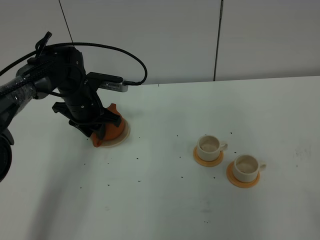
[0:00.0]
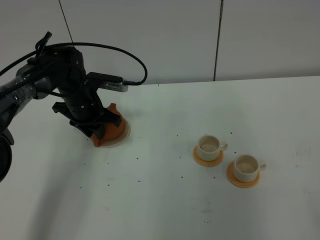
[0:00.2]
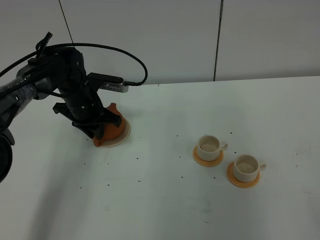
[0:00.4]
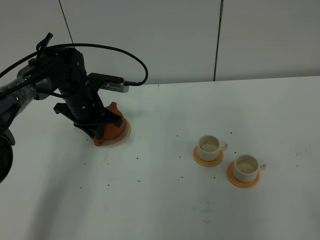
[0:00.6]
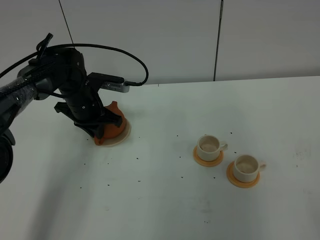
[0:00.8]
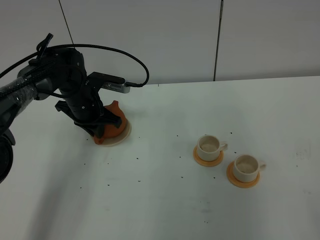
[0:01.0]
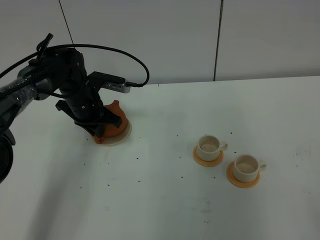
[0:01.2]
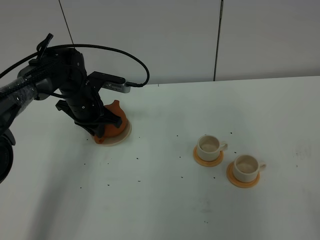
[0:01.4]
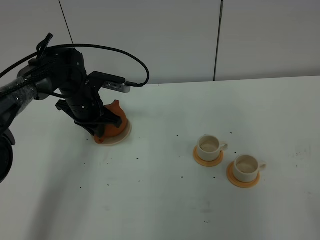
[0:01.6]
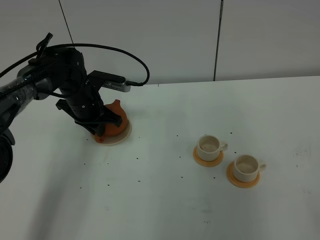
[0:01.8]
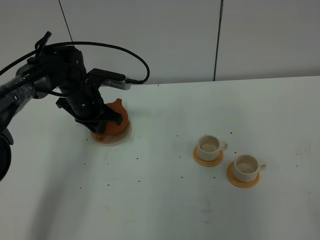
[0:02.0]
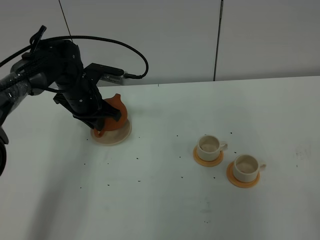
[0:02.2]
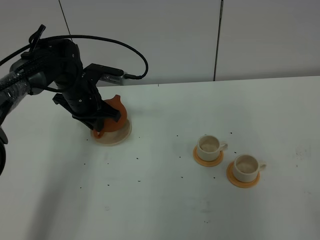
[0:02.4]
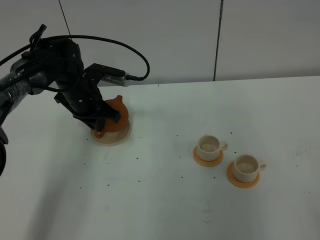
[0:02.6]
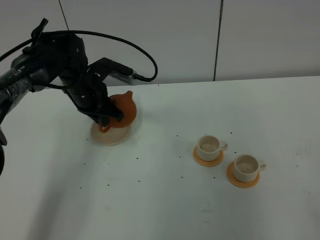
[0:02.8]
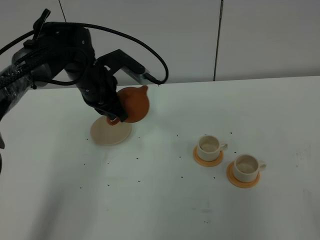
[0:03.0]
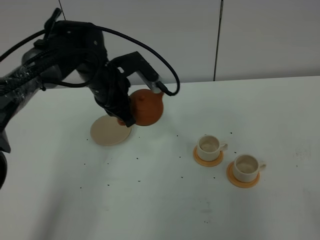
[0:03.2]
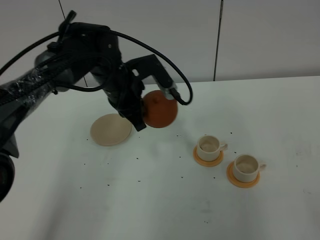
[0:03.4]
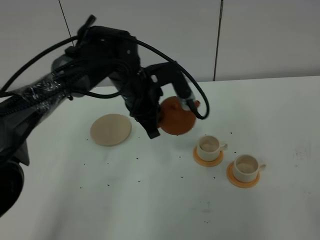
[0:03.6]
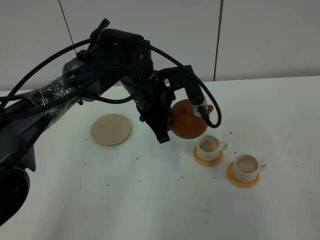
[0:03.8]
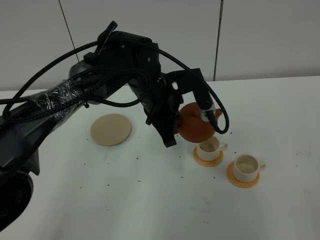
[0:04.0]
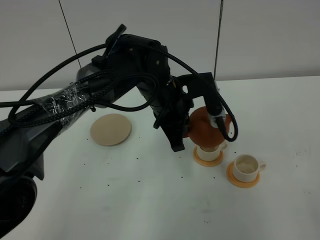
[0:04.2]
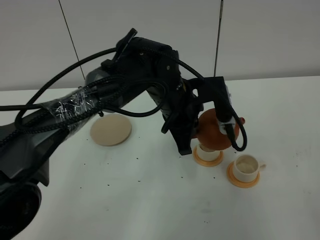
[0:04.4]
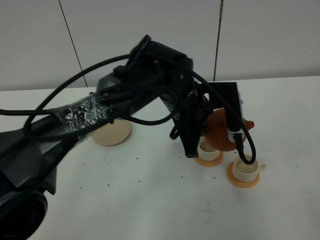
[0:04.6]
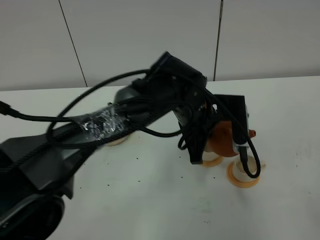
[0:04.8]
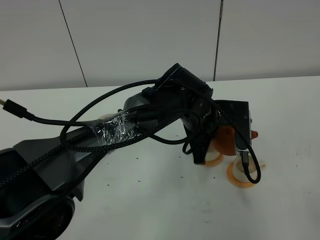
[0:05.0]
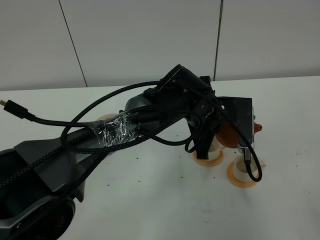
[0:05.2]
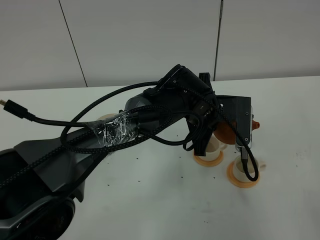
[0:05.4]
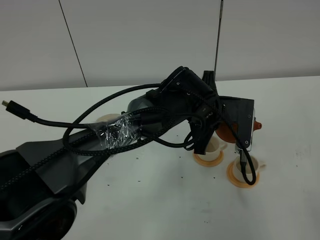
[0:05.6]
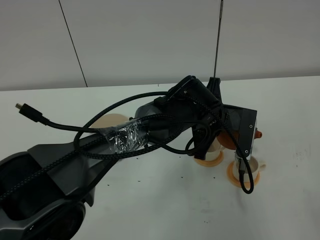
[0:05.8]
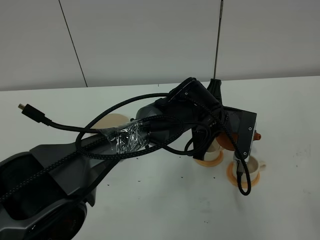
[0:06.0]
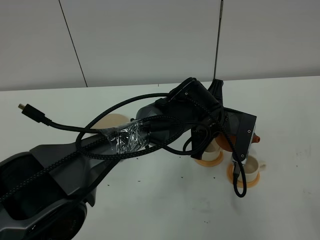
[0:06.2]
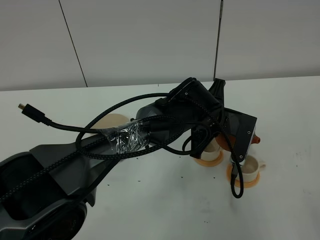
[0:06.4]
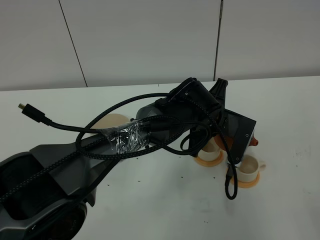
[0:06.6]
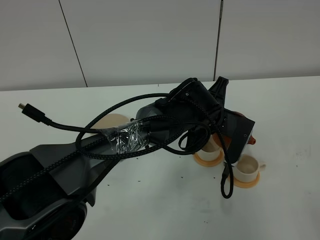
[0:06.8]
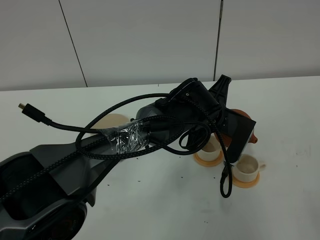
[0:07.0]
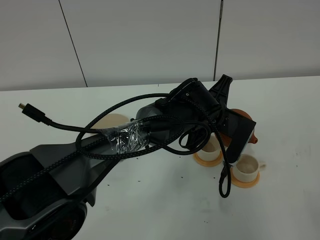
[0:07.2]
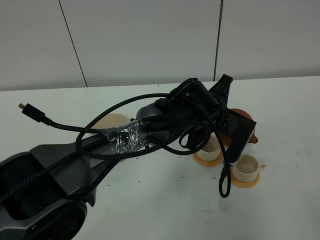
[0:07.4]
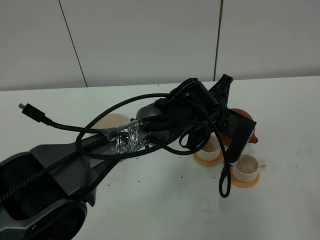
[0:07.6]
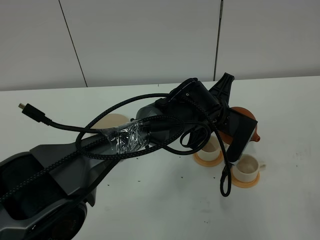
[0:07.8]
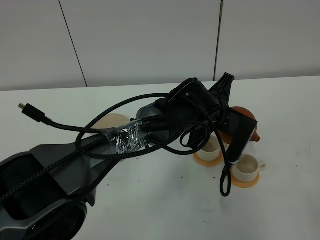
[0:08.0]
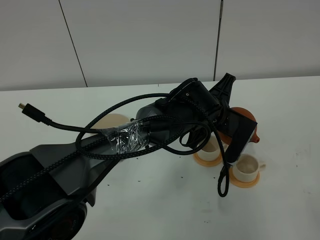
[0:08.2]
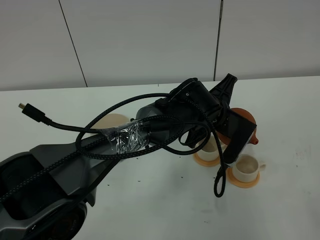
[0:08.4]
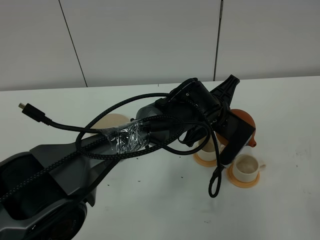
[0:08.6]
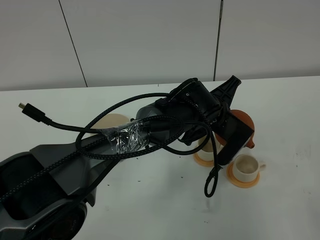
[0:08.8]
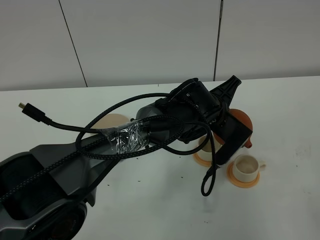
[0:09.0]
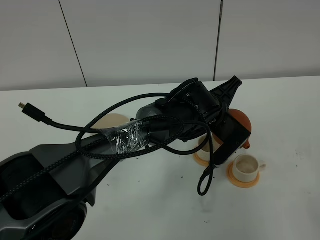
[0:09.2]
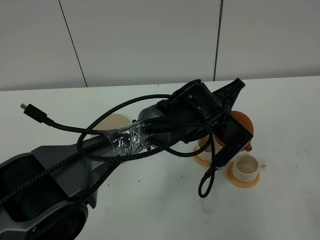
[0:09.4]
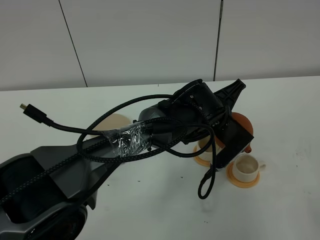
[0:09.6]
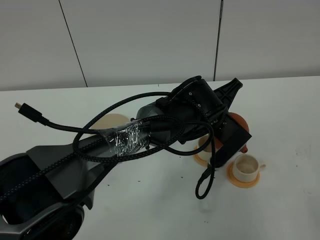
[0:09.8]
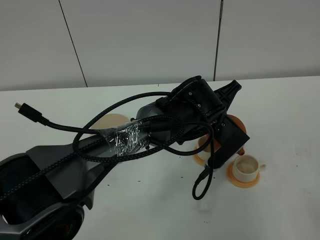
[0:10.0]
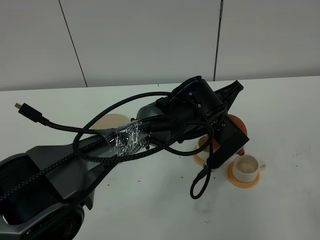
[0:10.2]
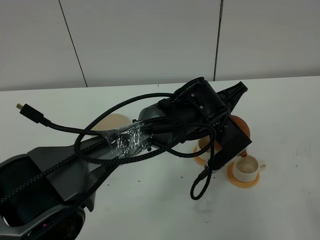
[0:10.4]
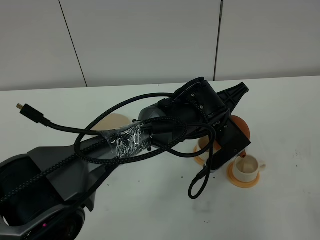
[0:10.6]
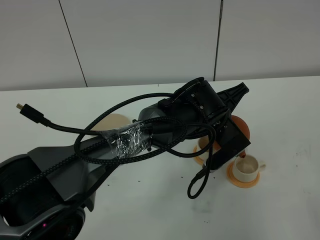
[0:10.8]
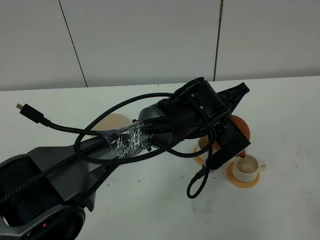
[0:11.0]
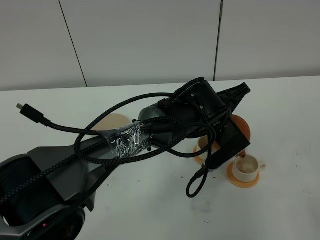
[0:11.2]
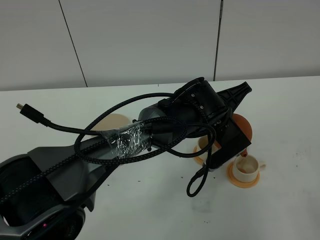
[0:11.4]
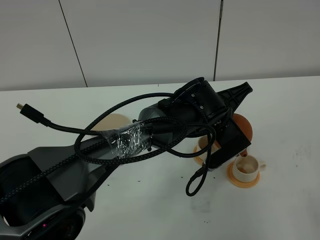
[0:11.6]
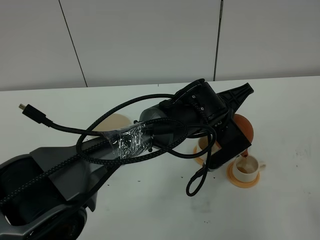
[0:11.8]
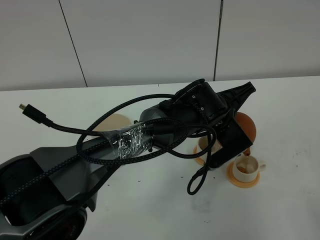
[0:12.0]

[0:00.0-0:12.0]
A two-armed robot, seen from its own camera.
Task of the whole recording: grasp the brown teapot and pour the tea into the two white teacups one by one, put the brown teapot back in its original place.
Step, 0:00.0 to 0:03.2: Pick up the teapot with the left gripper.
0:00.0 to 0:01.6: The left gripper closes its fingers.
0:01.6 to 0:03.0: The left gripper is displaced upward by roughly 5 cm.
0:03.0 to 0:04.4: The left gripper is displaced to the right and backward by approximately 15 cm.
0:04.4 to 0:06.0: The left gripper goes about 10 cm to the right and downward.
0:06.0 to 0:07.6: There are only small adjustments of the grippers.
0:07.6 to 0:09.0: The grippers stay close to where they were, moving slightly.
0:09.0 to 0:12.0: The grippers move only a little.

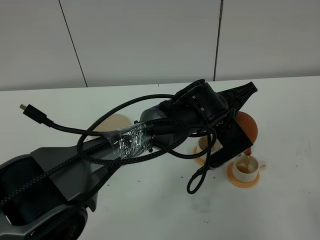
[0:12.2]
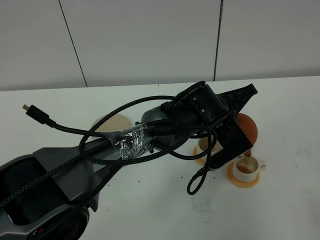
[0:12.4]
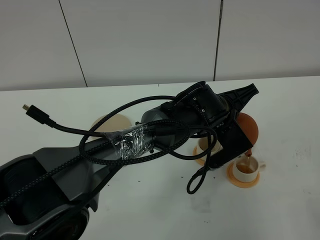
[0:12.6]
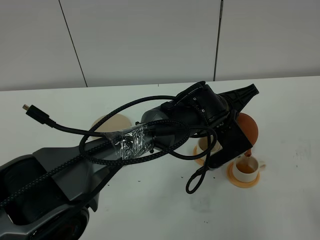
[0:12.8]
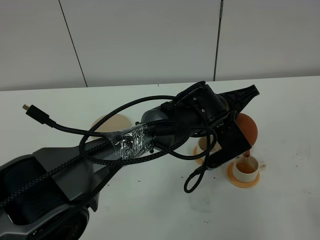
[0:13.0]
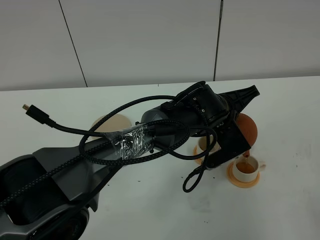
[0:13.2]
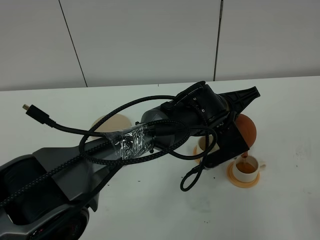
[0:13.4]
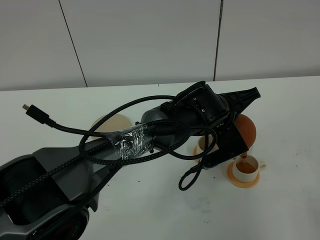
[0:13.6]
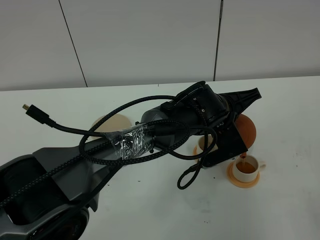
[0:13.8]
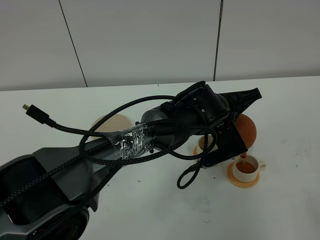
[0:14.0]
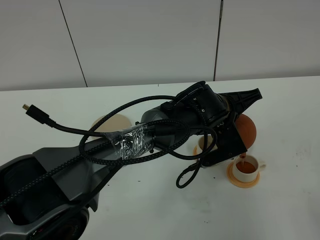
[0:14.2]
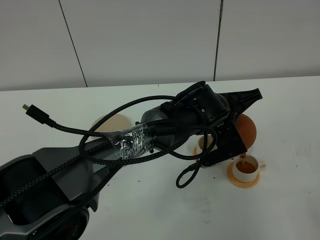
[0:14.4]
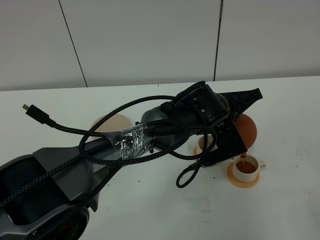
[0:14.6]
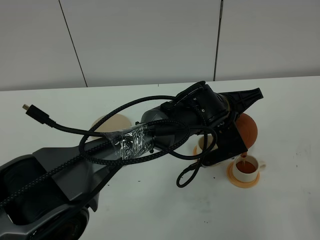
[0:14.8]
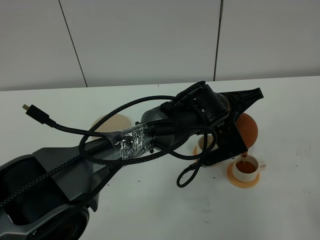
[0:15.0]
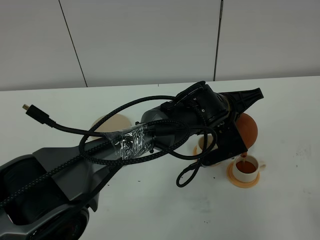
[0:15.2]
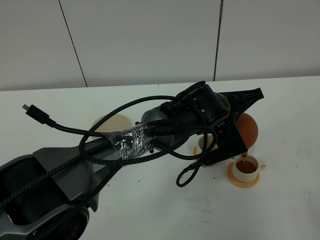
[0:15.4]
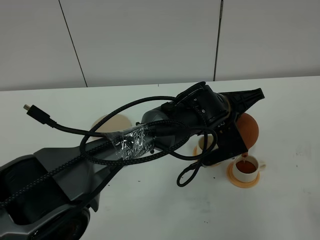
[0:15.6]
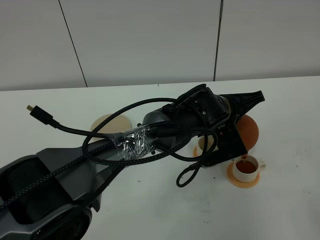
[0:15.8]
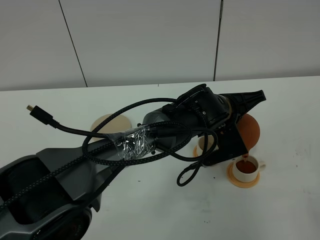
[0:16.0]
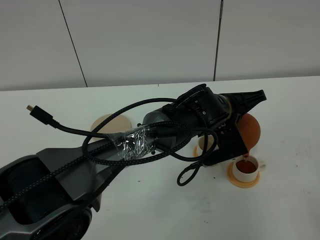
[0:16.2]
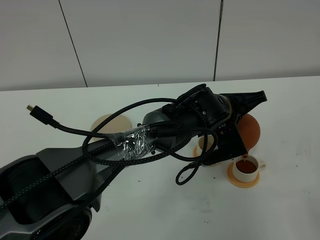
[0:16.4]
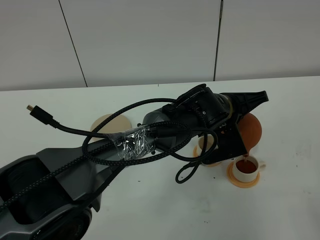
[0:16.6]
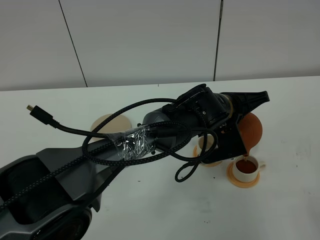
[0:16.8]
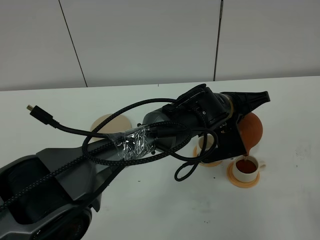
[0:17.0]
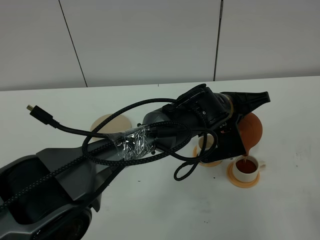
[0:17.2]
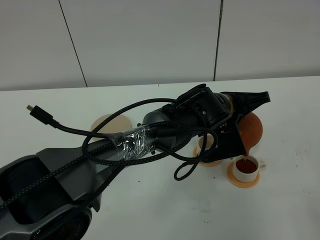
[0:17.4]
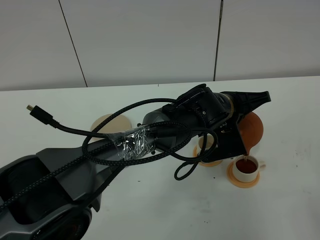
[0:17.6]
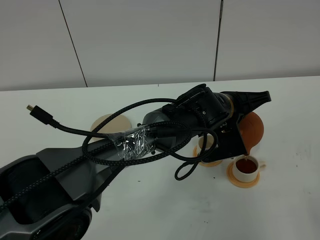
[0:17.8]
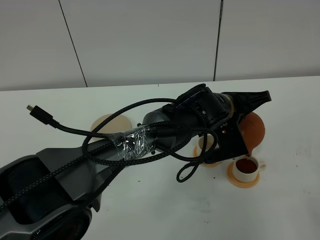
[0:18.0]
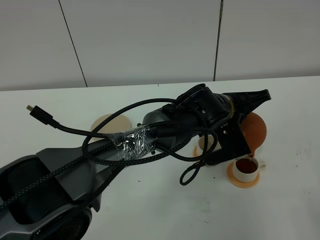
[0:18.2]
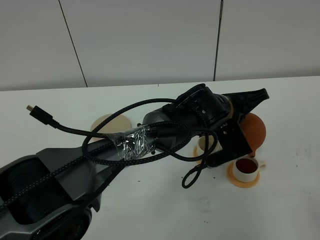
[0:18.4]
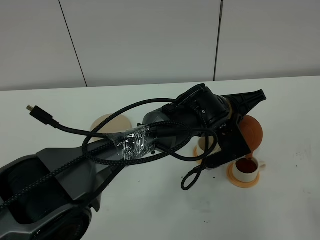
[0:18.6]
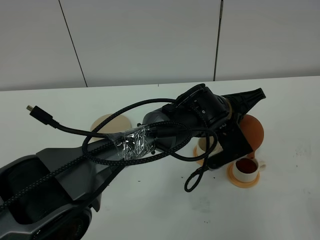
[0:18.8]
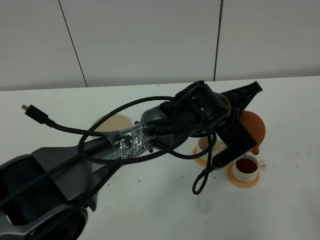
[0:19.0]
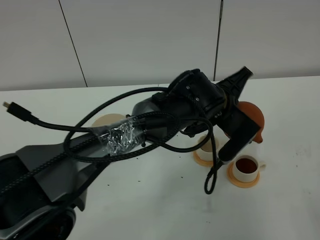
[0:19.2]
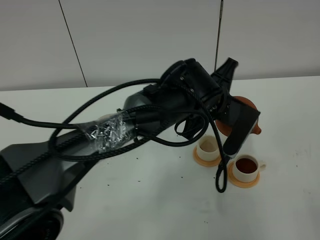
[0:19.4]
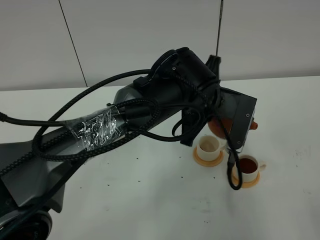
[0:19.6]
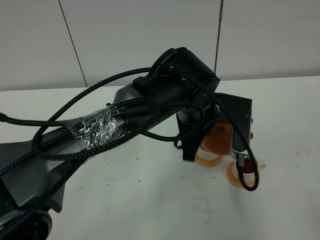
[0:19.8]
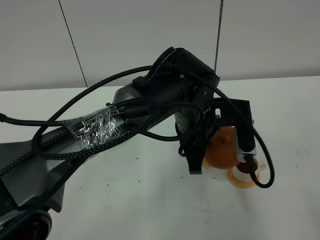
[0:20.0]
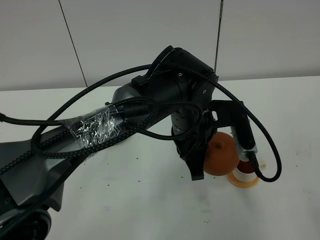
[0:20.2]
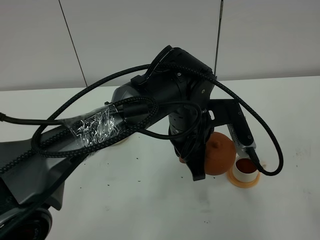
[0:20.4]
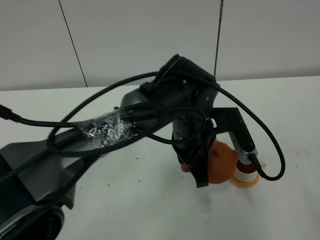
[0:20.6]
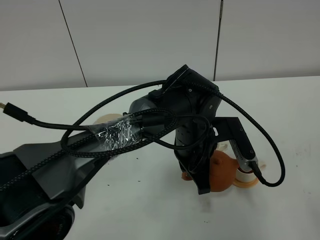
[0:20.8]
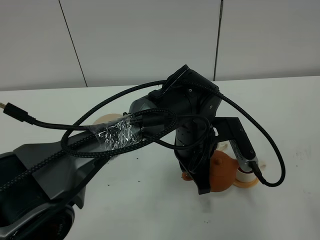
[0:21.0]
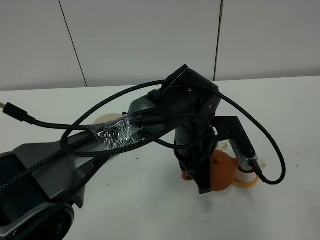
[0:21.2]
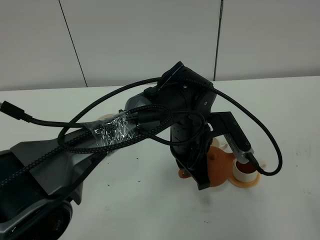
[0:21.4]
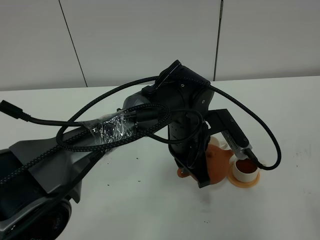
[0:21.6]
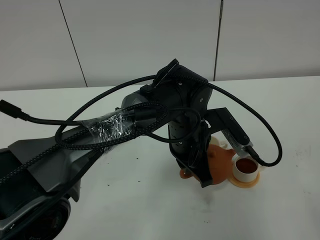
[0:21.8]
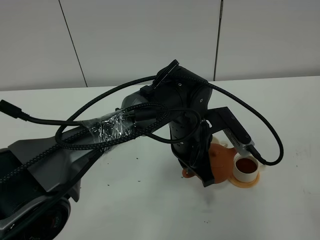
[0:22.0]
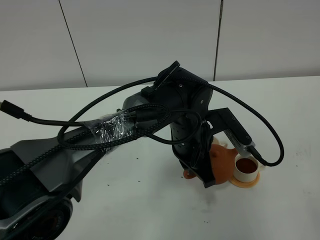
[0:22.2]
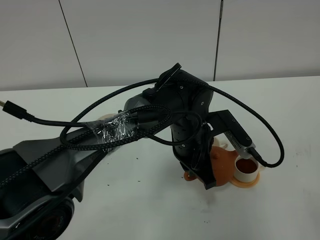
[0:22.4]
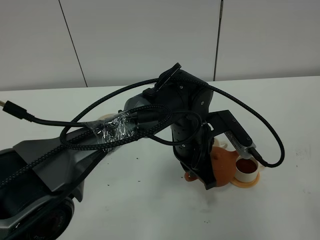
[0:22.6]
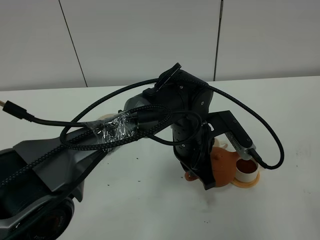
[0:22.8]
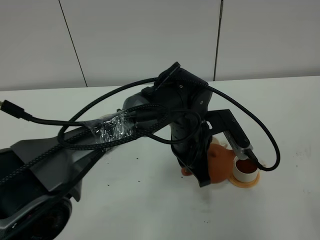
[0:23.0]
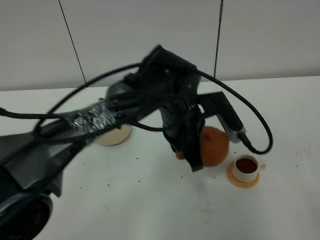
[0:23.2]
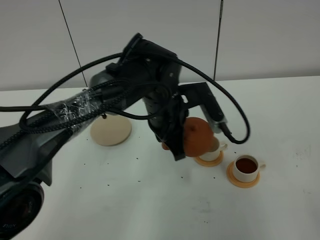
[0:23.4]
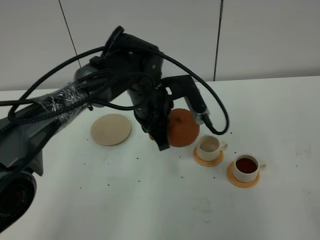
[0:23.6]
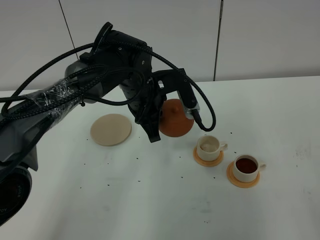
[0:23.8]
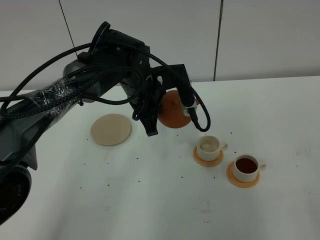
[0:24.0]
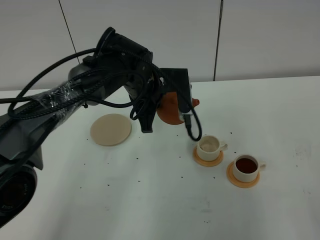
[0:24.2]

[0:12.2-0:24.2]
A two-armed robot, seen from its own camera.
Task of the whole recording: grasp the brown teapot and pour the tea into the two white teacups one by one, put the brown teapot back in its original place.
0:12.2 to 0:13.8: The grippers stay close to where they were, moving slightly.
0:13.8 to 0:15.2: Both grippers stay put.
0:15.2 to 0:16.6: The grippers make only small movements.
0:16.6 to 0:18.2: Neither gripper changes place.
0:18.2 to 0:19.8: The left gripper moves roughly 10 cm.
0:19.8 to 0:21.2: The left gripper heads downward, covering about 5 cm.
0:21.2 to 0:22.6: The grippers stay close to where they were, moving slightly.
0:22.6 to 0:24.2: The left gripper travels forward and to the left by about 15 cm.
